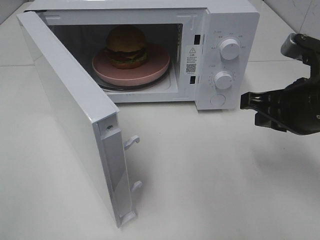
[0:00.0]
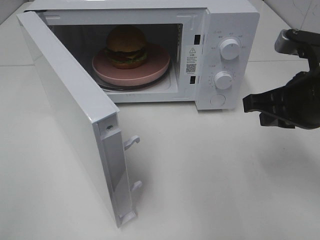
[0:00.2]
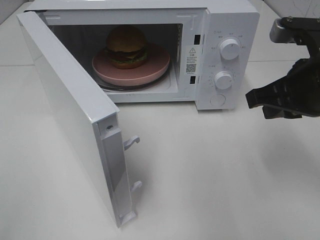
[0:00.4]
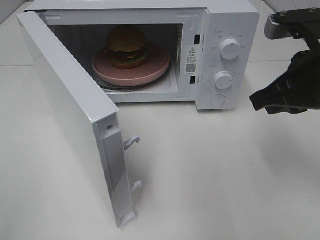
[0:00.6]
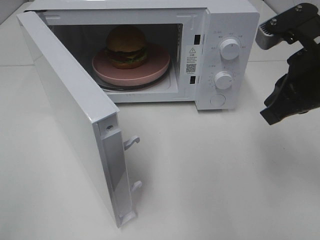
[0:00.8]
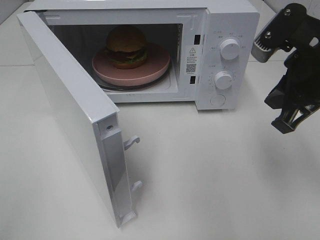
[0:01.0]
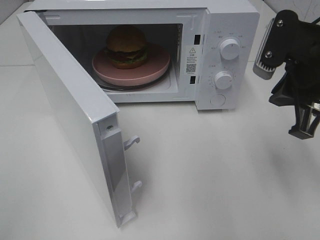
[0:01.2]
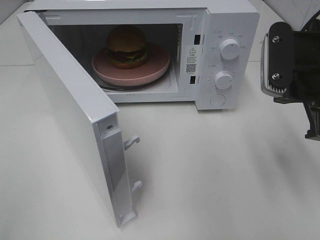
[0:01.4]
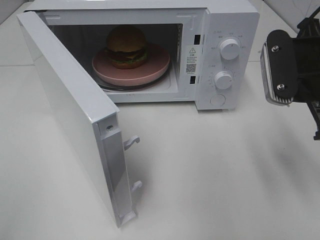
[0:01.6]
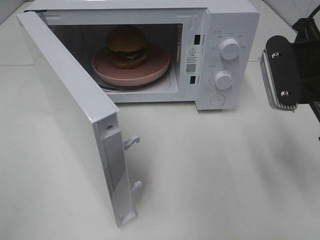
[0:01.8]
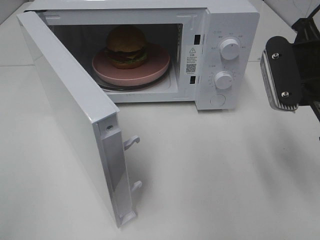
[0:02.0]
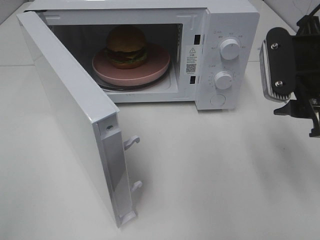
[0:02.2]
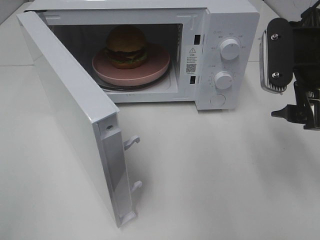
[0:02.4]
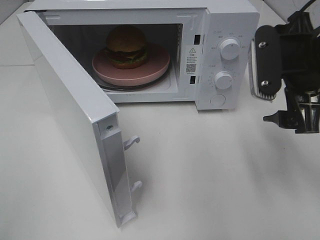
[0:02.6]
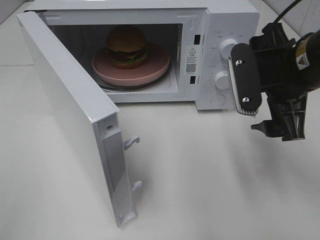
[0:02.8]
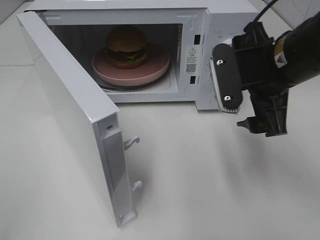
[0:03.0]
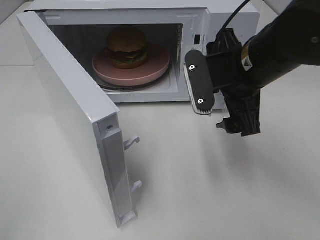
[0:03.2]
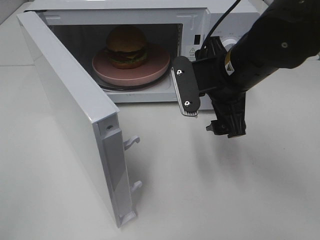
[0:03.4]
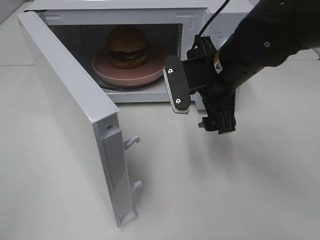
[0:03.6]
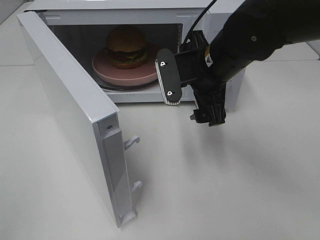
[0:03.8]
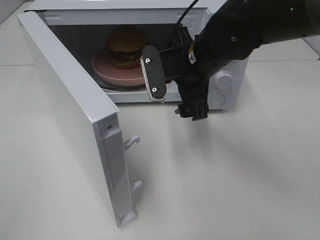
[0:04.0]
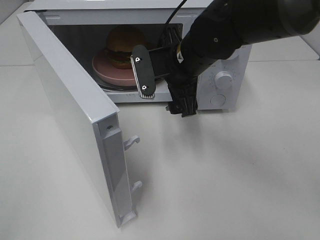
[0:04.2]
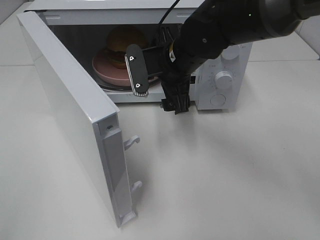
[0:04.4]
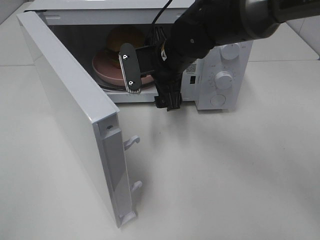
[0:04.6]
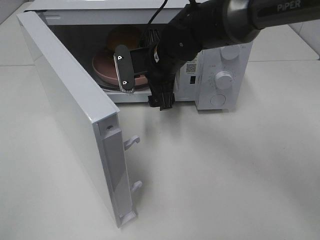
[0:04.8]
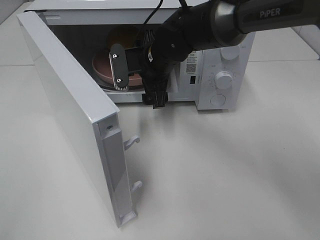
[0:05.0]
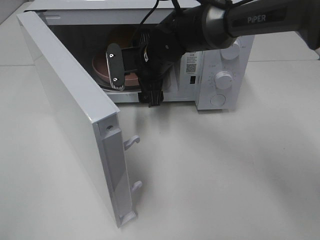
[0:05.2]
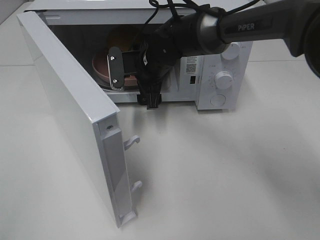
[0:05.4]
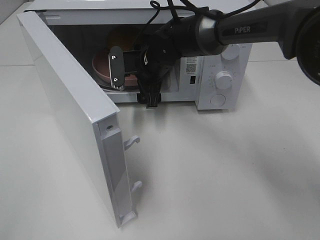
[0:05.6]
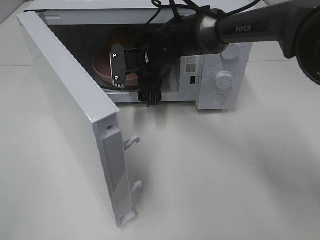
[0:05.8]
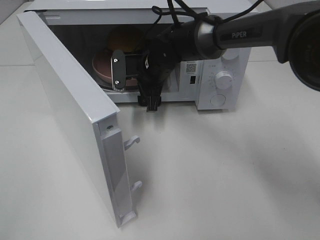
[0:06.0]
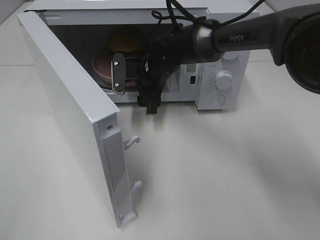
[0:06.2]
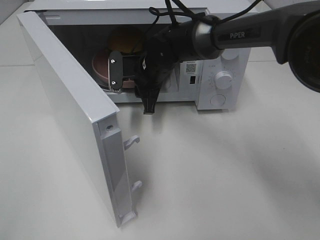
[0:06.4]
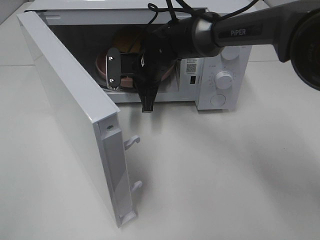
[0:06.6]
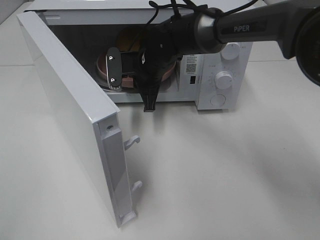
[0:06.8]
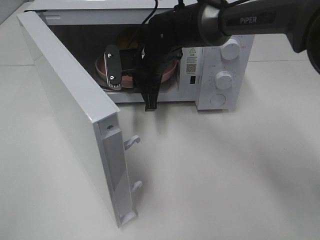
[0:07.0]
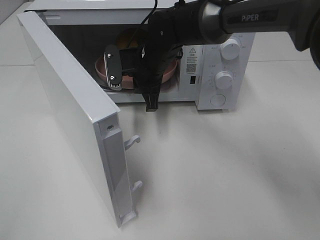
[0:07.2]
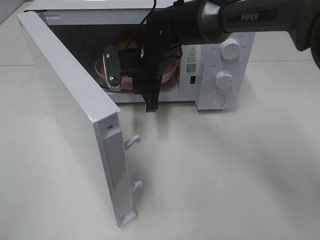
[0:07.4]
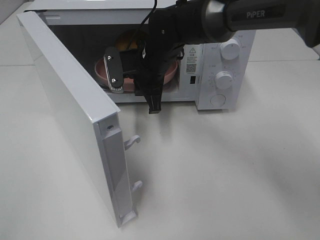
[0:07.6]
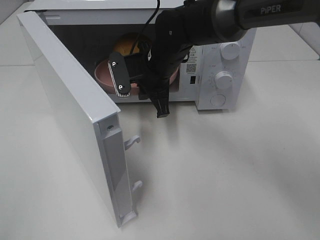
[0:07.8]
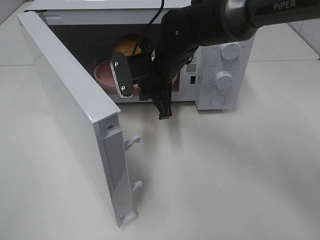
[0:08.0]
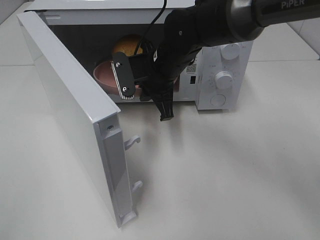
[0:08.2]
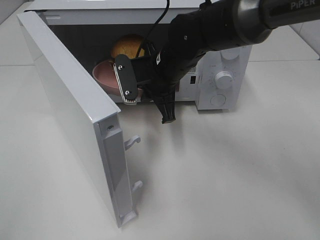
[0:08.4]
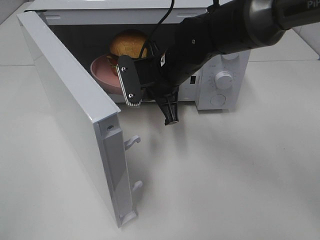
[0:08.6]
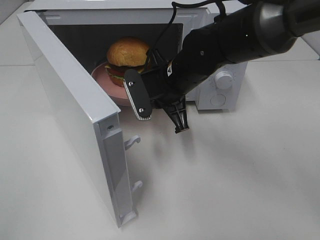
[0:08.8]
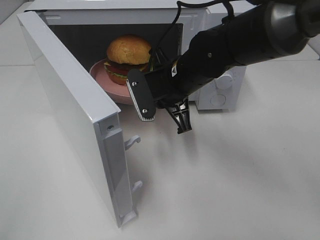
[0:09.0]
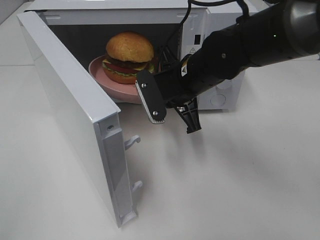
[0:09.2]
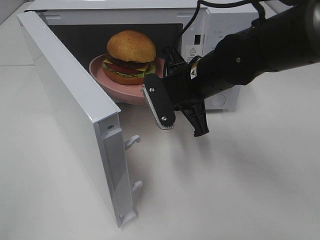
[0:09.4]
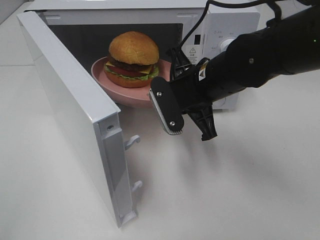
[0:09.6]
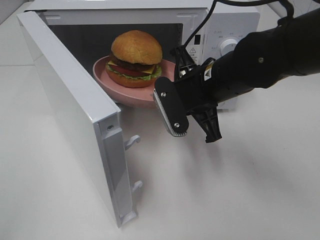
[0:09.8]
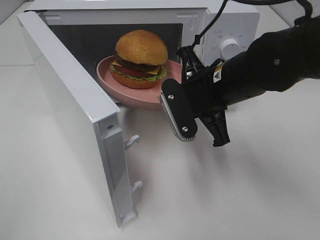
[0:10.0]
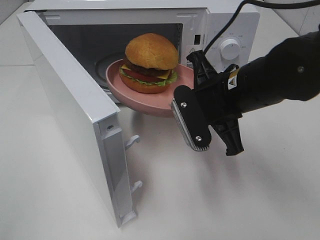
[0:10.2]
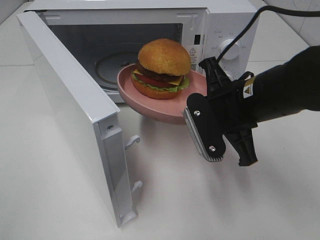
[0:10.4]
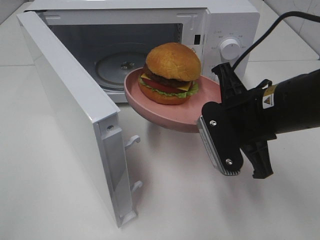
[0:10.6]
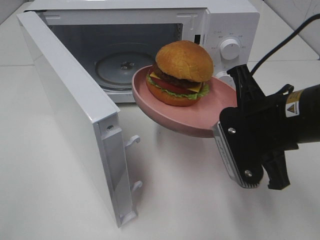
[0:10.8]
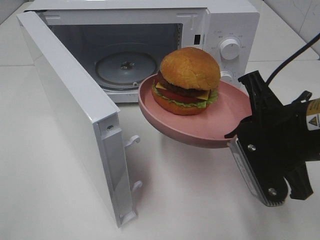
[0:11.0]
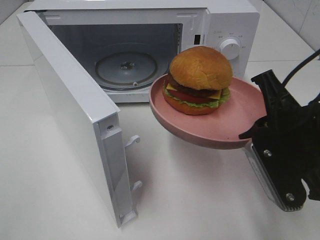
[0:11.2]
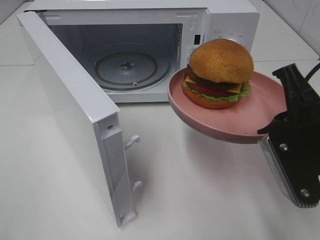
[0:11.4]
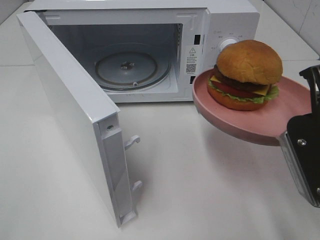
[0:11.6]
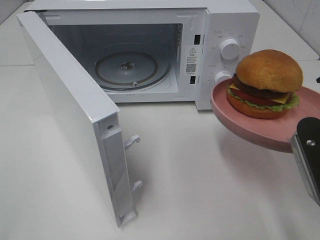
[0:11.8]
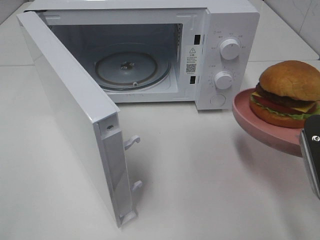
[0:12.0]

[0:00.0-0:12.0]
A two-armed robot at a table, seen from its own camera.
Task of the whole recording: Heat the burger.
Step, 0:00.0 to 0:06.6: Right hand: grab the plate with the hamburger.
0:00.0 to 0:01.6: The right gripper ends up roughly 5 cm from where it was.
0:01.6 to 0:03.0: The right gripper moves to the left, about 5 cm, and opens its fingers.
0:03.0 to 0:04.4: The right gripper goes roughly 15 cm to the left, forward and downward.
0:04.4 to 0:06.0: The right gripper heads forward and downward, covering roughly 10 cm.
0:06.0 to 0:07.6: The right gripper closes up.
0:07.6 to 0:09.0: The right gripper heads backward, covering about 5 cm.
0:09.0 to 0:10.4: The right gripper is displaced backward and to the right by approximately 10 cm.
0:10.4 to 0:12.0: The right gripper moves to the right and backward, some 15 cm.

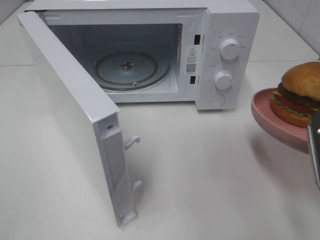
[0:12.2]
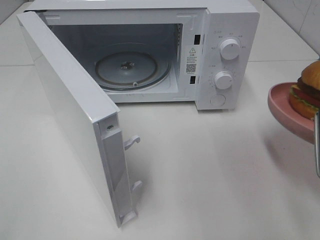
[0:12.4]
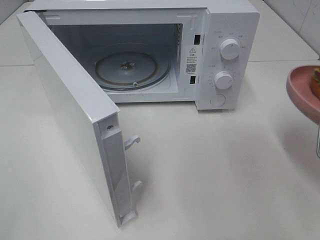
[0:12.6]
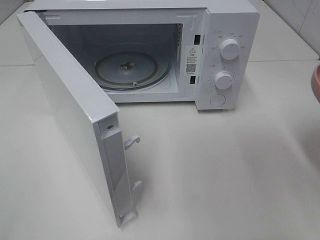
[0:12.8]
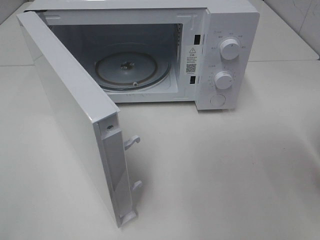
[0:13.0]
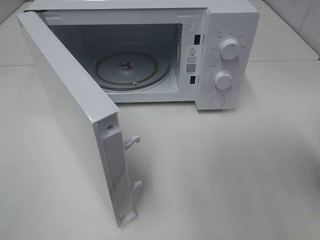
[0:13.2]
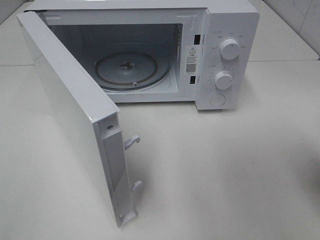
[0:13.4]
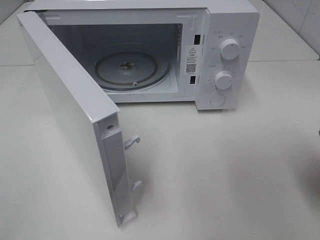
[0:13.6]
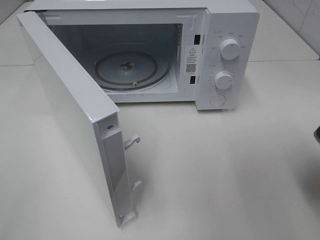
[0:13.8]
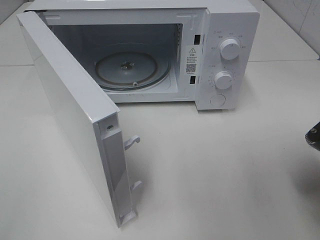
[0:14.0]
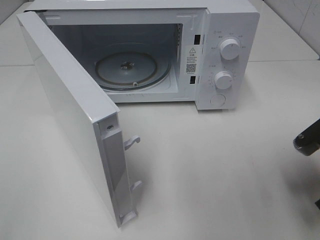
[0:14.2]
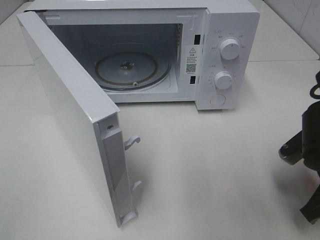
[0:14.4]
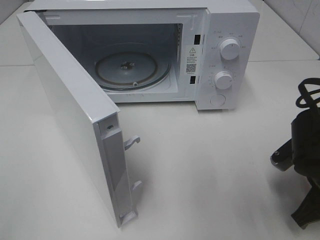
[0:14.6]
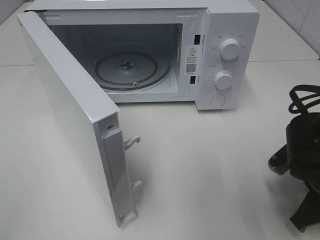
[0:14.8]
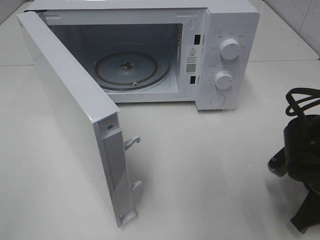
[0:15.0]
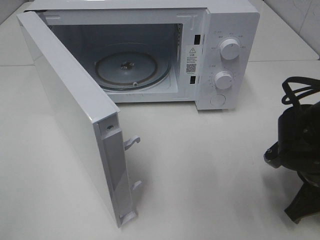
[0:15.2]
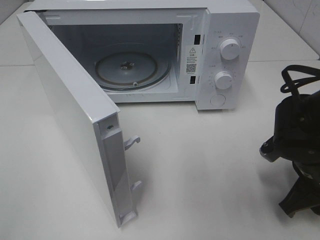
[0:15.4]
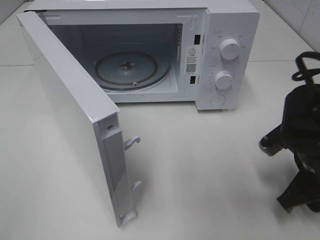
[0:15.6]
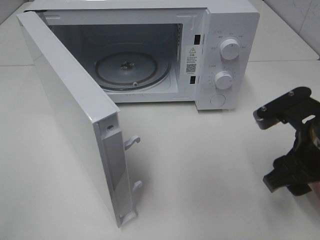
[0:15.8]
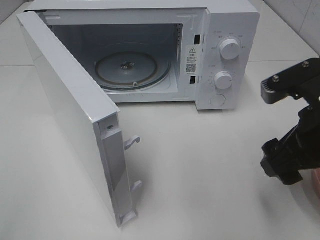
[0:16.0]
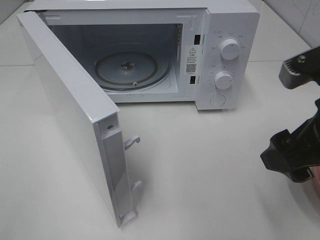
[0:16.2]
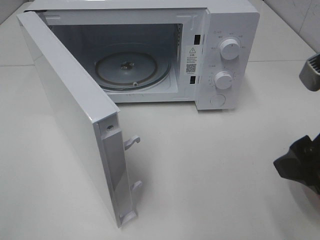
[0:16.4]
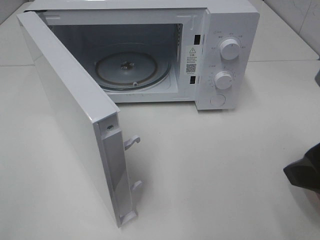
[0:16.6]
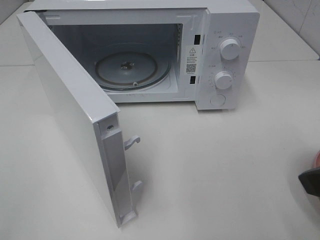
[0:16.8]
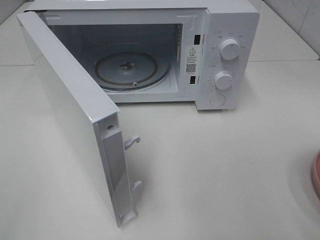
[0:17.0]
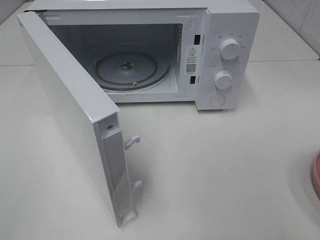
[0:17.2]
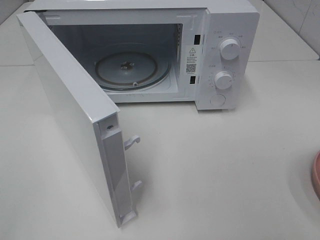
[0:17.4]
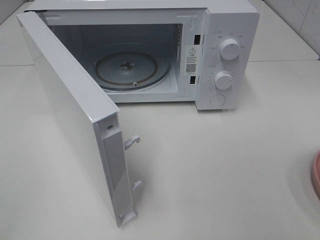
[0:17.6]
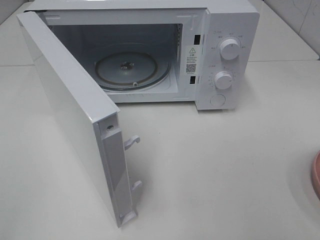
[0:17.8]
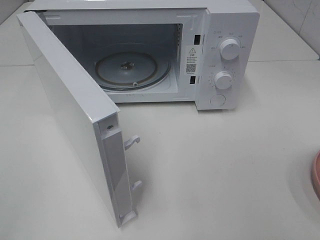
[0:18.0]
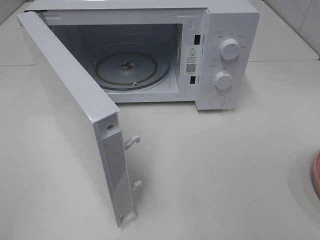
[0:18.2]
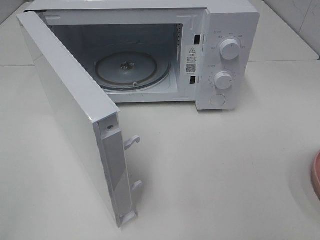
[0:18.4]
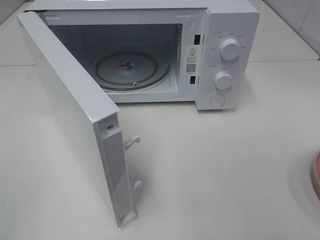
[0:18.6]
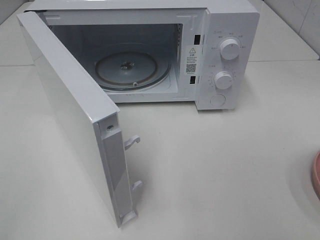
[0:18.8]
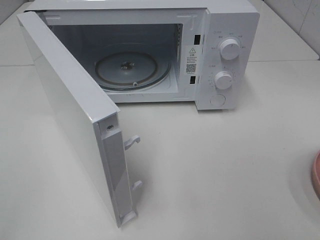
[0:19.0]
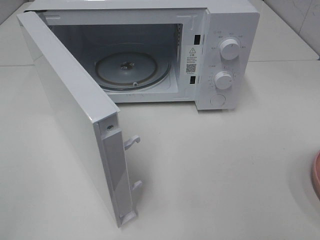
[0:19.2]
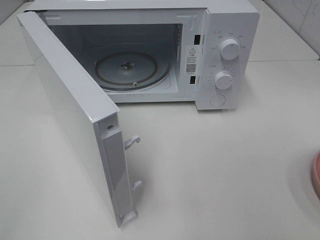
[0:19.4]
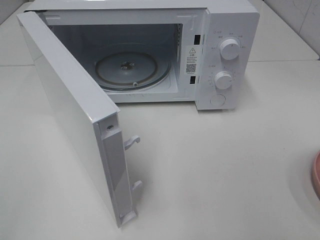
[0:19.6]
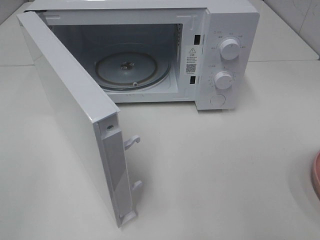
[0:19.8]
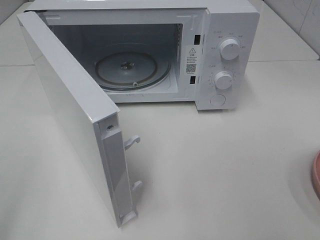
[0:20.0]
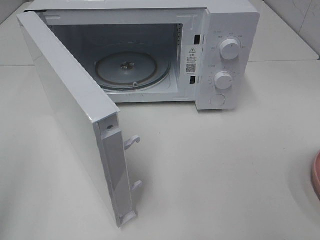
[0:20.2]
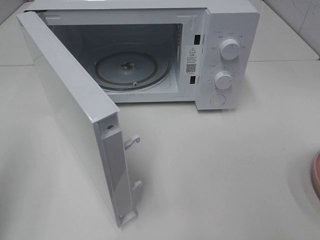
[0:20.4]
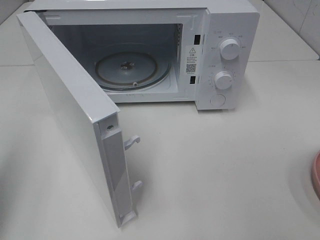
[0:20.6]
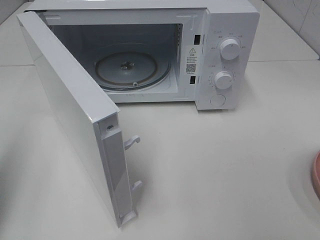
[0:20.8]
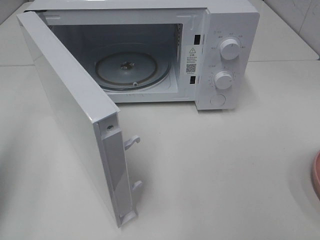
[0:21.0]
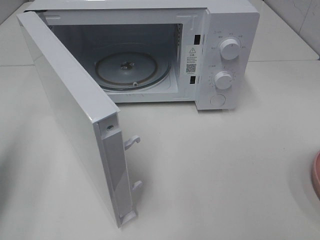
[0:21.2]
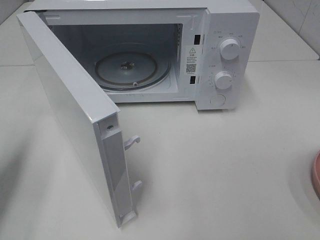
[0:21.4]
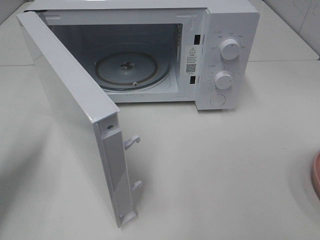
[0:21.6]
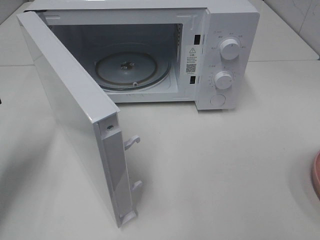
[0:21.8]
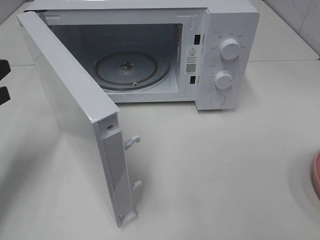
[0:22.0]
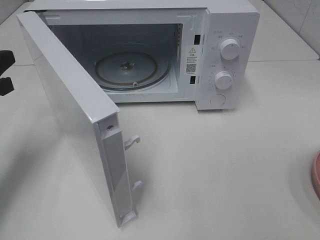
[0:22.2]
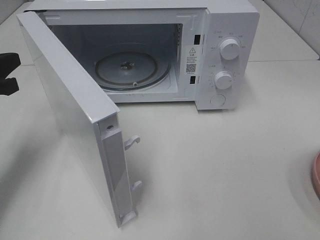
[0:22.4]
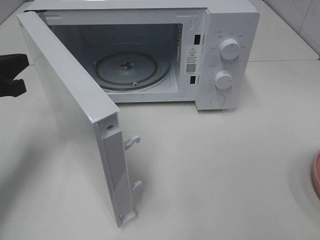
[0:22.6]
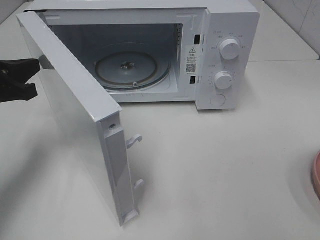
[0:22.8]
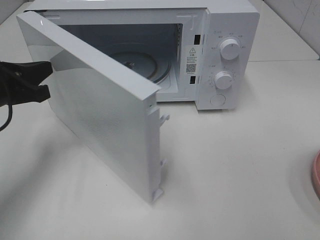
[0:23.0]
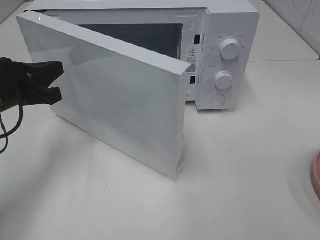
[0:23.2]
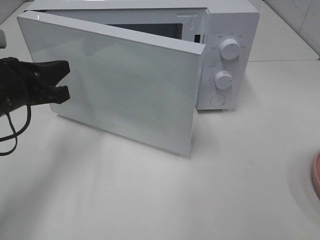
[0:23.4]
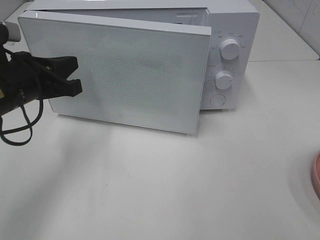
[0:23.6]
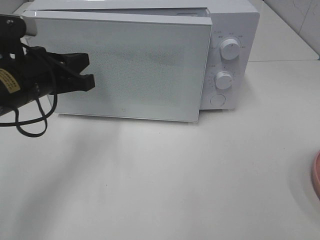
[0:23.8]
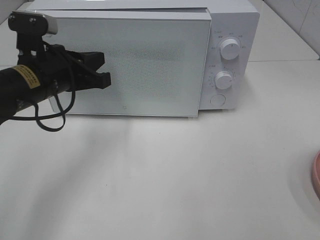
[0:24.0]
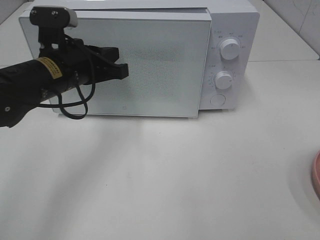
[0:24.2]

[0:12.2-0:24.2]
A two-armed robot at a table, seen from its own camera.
Task of the whole recording: Heat the burger.
Step, 0:12.2 to 0:15.4: Right hand: place the plate on the table.
0:13.8 to 0:15.2: The right gripper heads downward, covering roughly 10 cm.
0:15.2 to 0:16.6: The right gripper is displaced upward and backward by approximately 20 cm, and opens.
0:16.6 to 0:18.2: The right gripper travels backward and to the right by about 15 cm.
0:19.8 to 0:21.2: The left gripper is displaced forward and downward by about 20 cm, and closes.
0:21.2 to 0:22.6: The left gripper moves forward and to the right, approximately 10 cm.
0:22.6 to 0:24.2: The left gripper moves to the right, approximately 15 cm.
